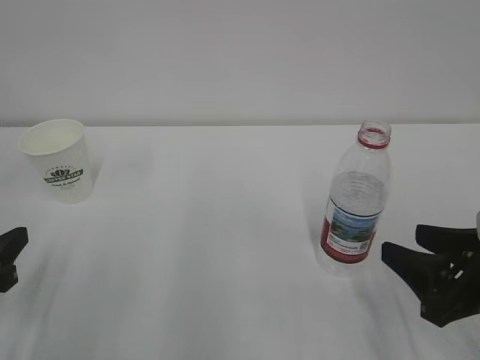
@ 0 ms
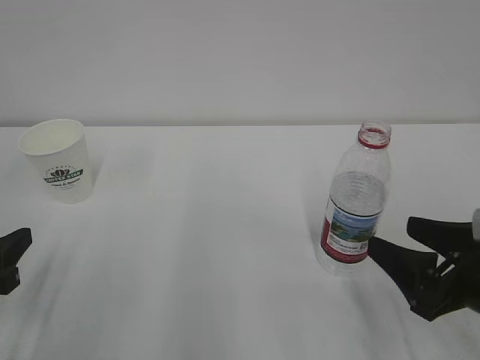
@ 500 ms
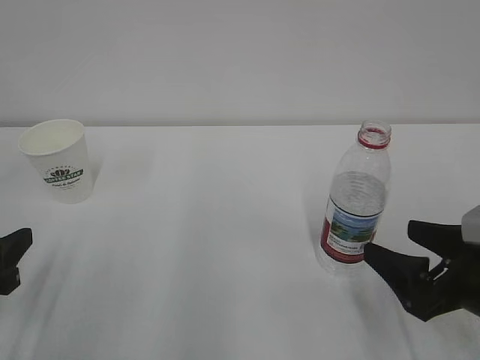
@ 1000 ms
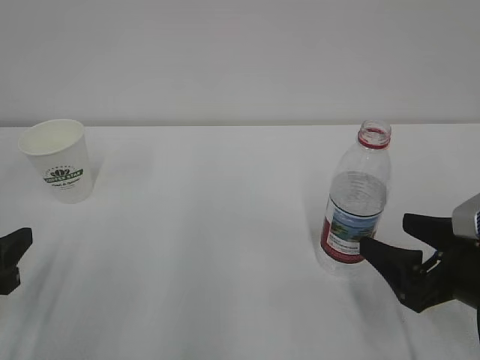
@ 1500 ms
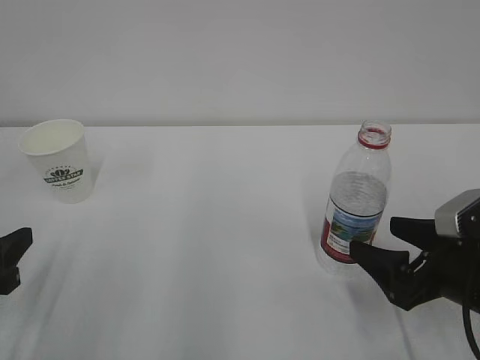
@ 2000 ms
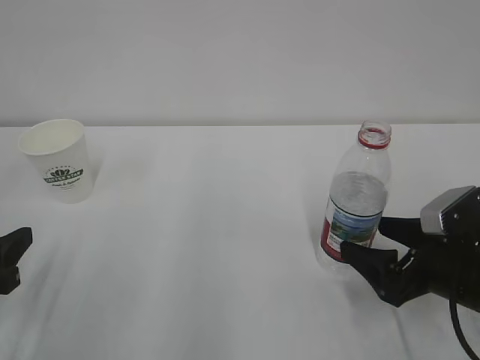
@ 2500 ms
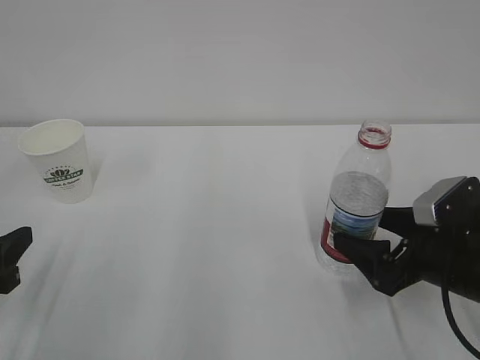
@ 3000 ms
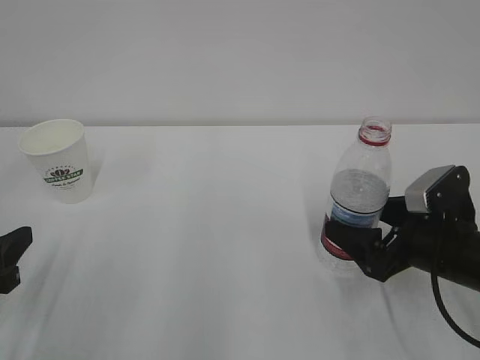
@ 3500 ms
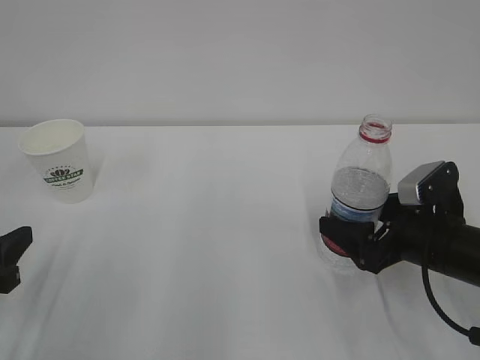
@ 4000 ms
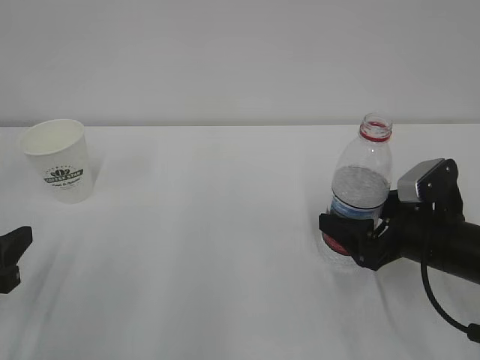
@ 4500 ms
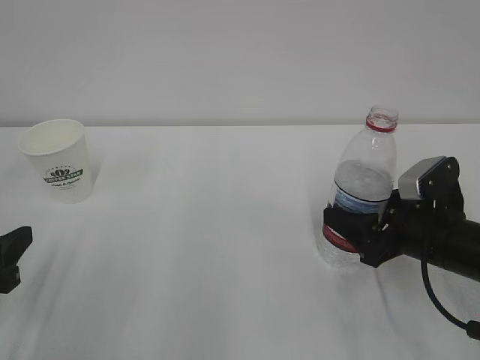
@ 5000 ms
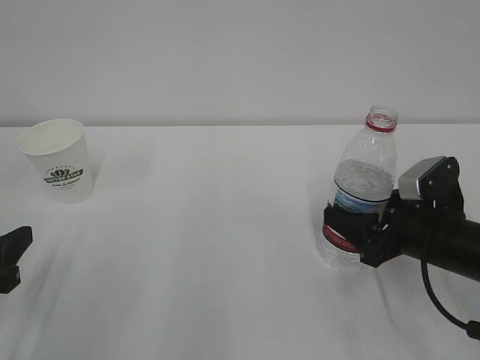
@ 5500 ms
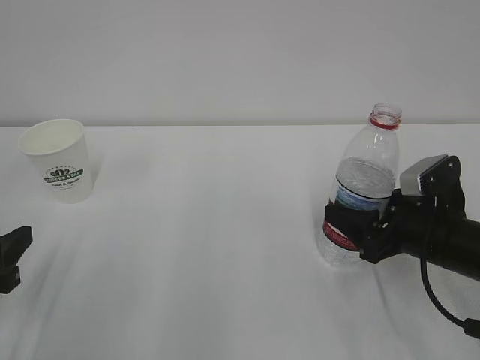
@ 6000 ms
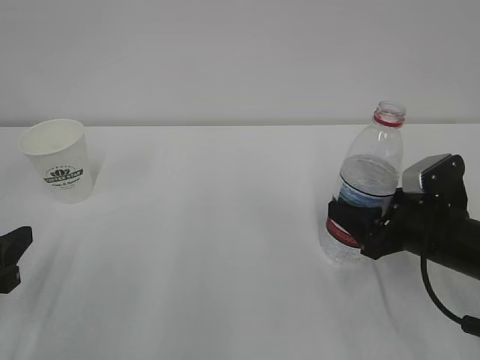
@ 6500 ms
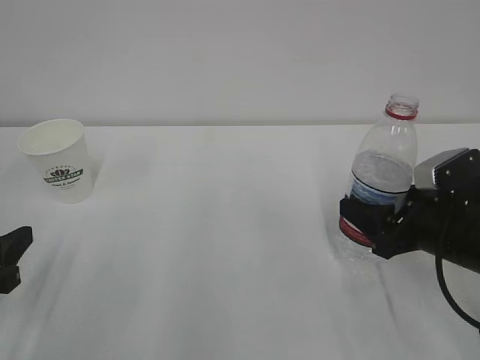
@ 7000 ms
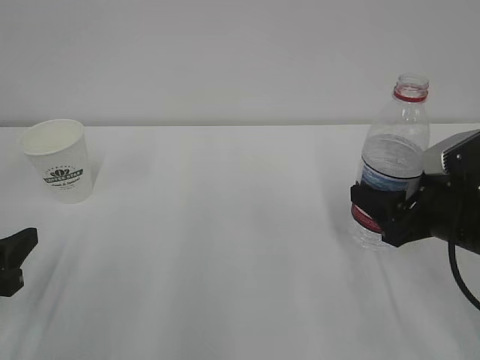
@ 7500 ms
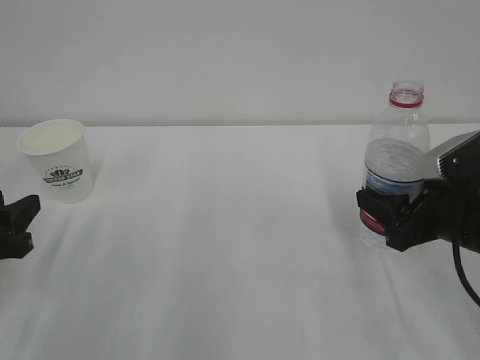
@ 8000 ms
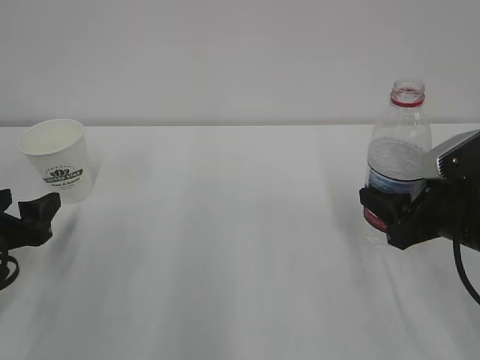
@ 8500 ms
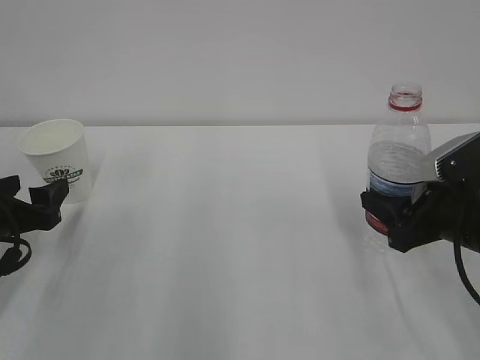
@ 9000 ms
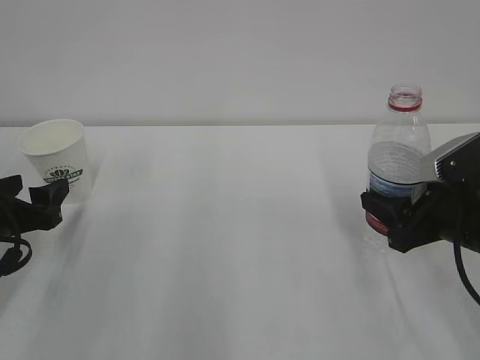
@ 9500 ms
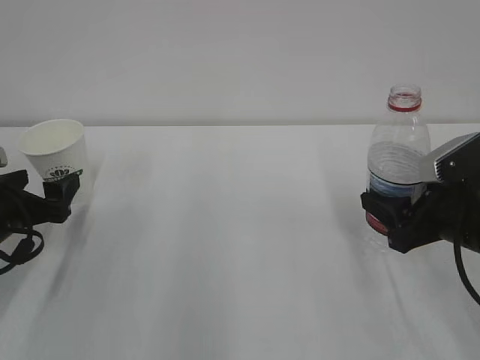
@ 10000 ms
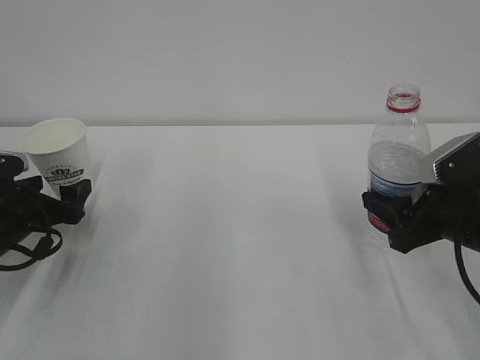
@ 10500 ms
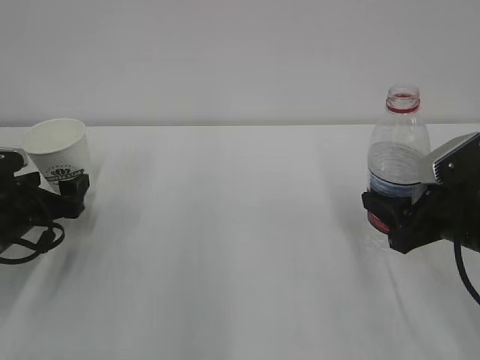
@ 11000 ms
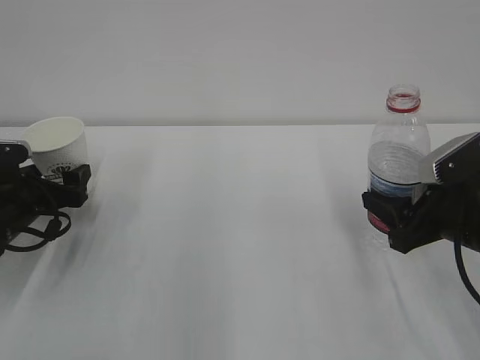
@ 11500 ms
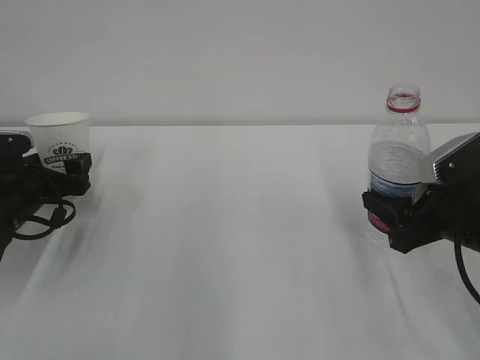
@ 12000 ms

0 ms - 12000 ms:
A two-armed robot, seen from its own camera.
0 ms - 2000 ms: The right gripper opens.
2000 ms - 4000 ms: The right gripper goes roughly 5 cm forward.
4000 ms - 6000 ms: The right gripper closes up.
6000 ms - 8000 ms: The right gripper moves roughly 5 cm.
8000 ms - 10000 ms: The left gripper heads forward, covering some 5 cm, and opens.
10000 ms - 12000 ms: The left gripper goes about 5 cm forward.

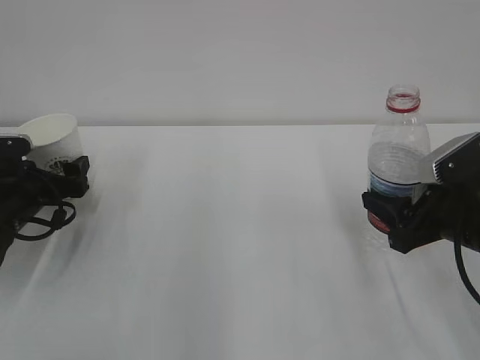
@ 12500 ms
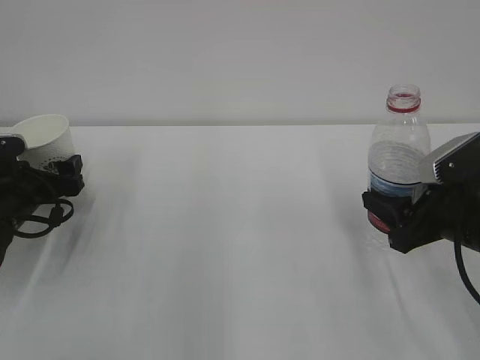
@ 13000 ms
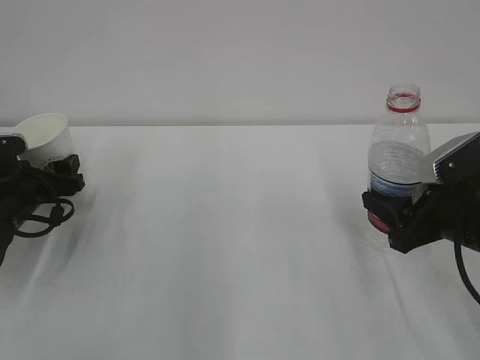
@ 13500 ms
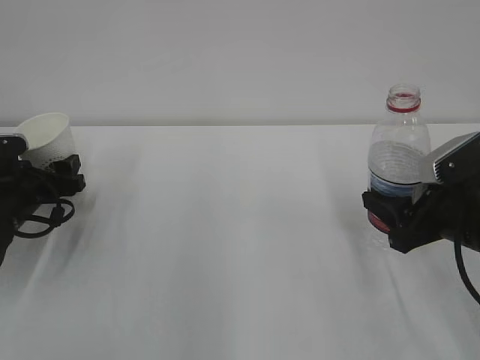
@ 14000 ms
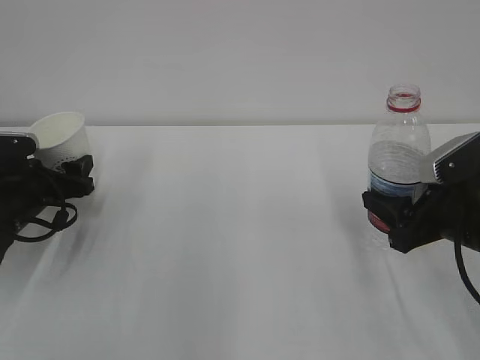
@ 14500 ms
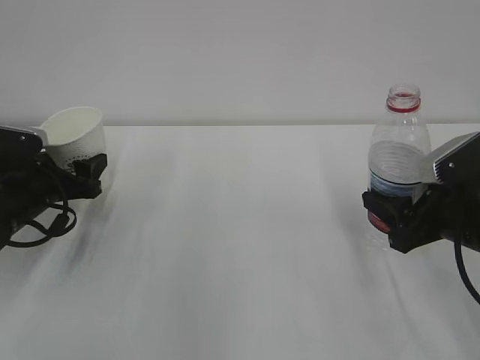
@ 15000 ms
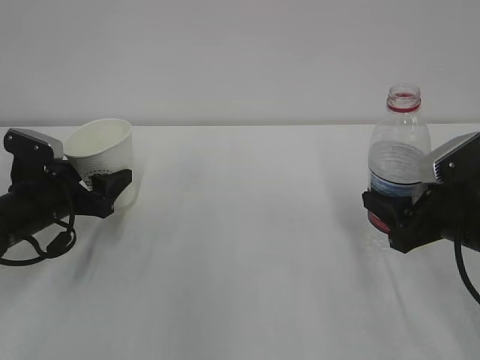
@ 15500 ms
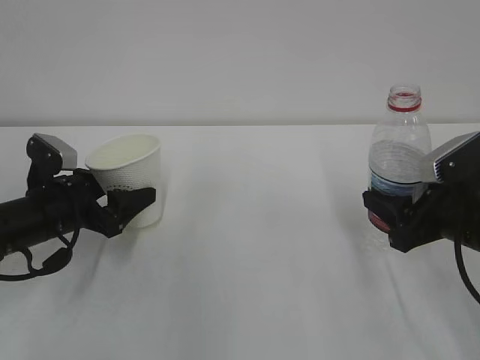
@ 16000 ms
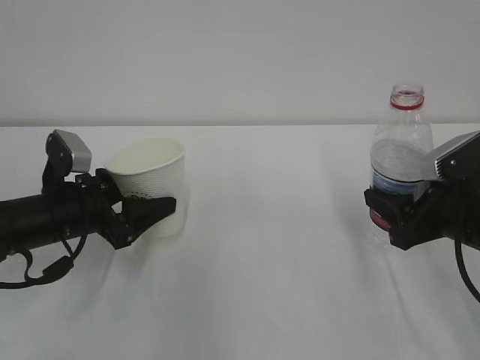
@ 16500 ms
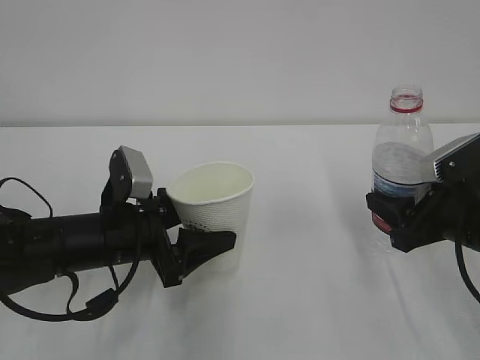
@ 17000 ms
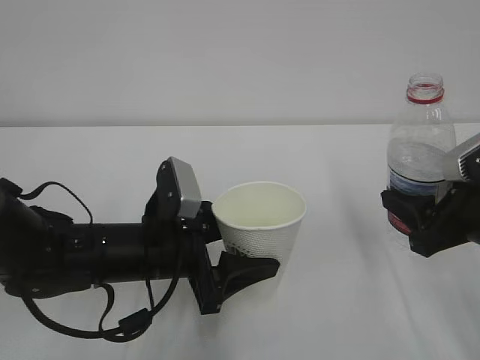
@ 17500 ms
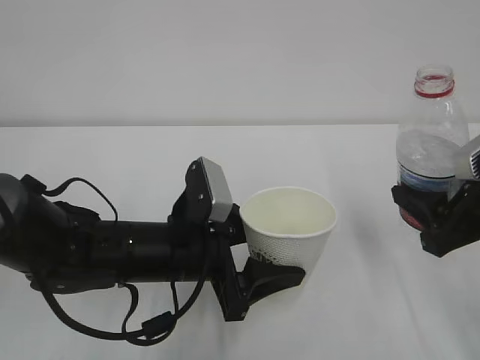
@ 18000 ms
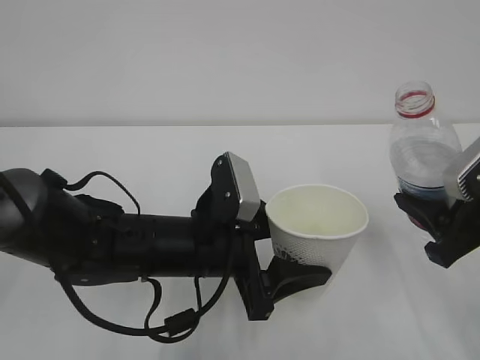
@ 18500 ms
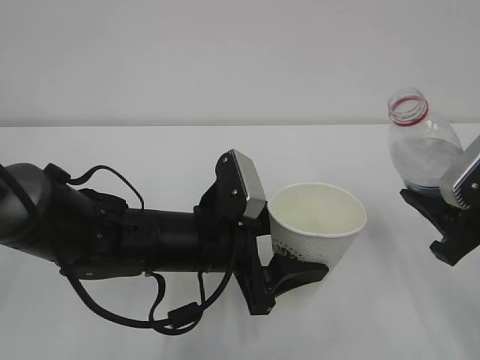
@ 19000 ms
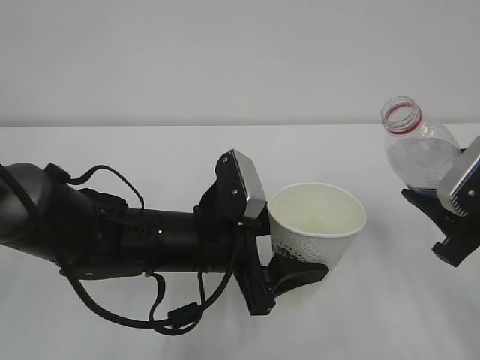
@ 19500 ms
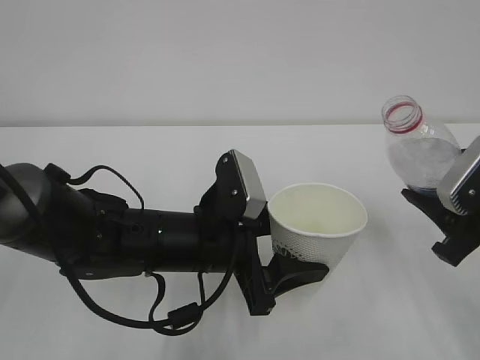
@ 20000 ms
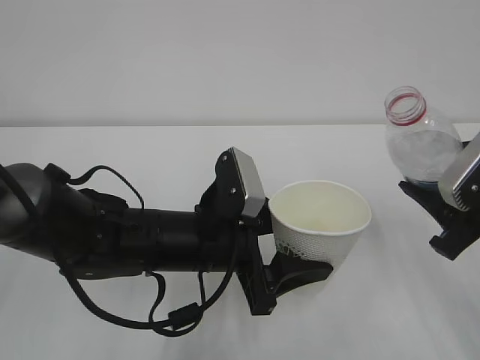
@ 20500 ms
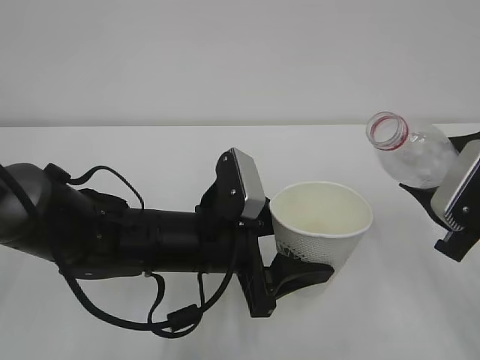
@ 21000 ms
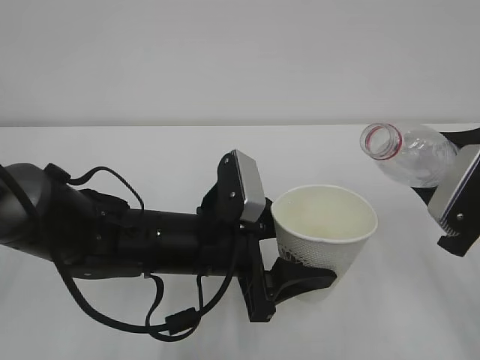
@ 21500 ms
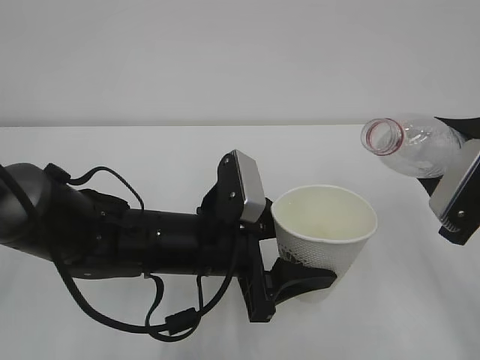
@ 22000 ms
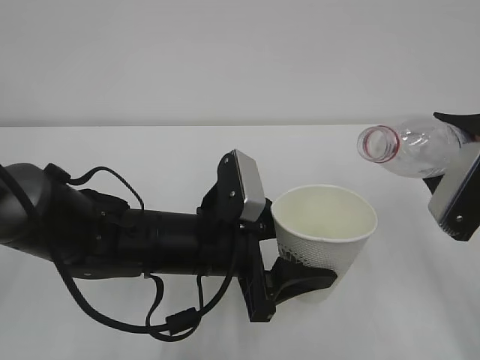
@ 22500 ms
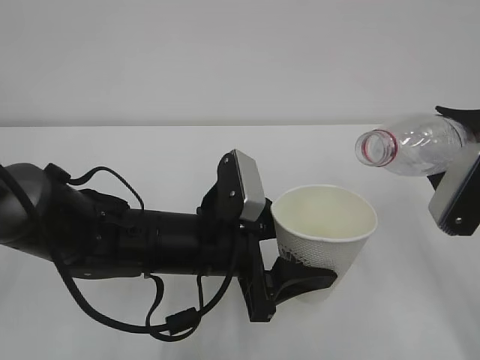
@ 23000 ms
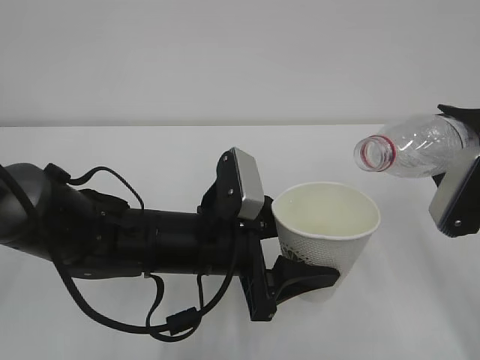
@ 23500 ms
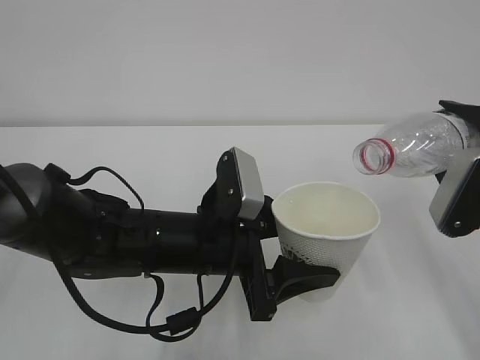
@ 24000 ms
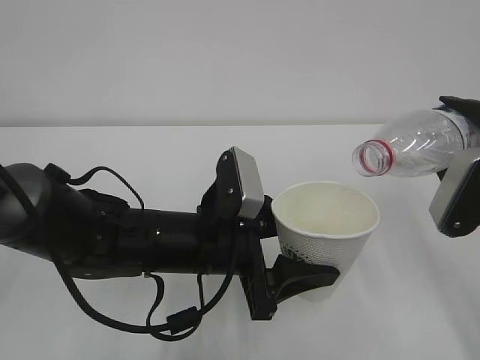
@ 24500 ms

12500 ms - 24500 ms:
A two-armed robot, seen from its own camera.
12500 ms - 14500 ms: The left gripper closes.
14500 ms - 16500 ms: The left gripper travels to the right and backward by some 10 cm.
16500 ms - 18500 ms: The right gripper moves about 5 cm. Meanwhile the left gripper moves to the right, about 15 cm.
18500 ms - 20500 ms: The grippers make only small movements.
22500 ms - 24500 ms: There are only small adjustments of the grippers.

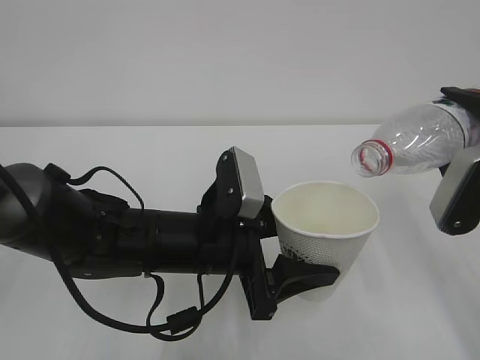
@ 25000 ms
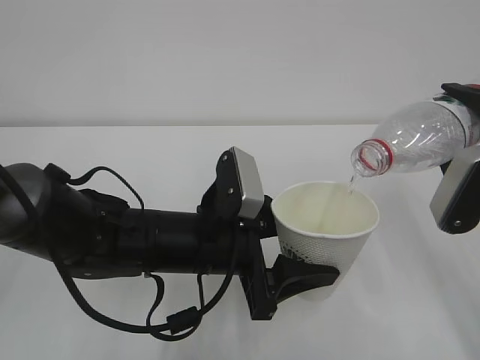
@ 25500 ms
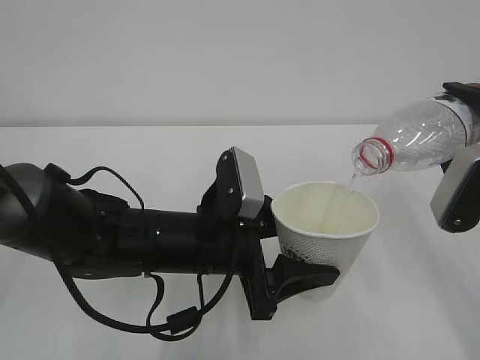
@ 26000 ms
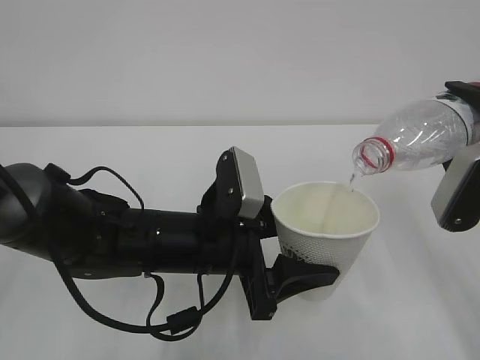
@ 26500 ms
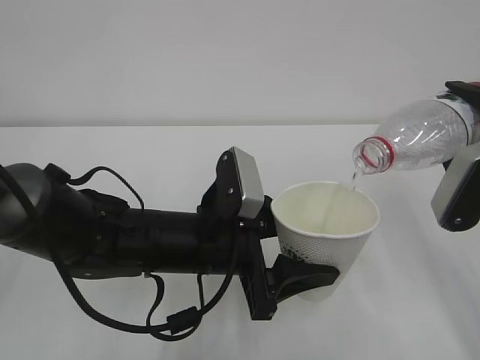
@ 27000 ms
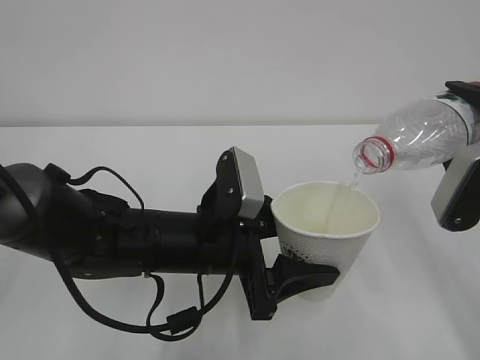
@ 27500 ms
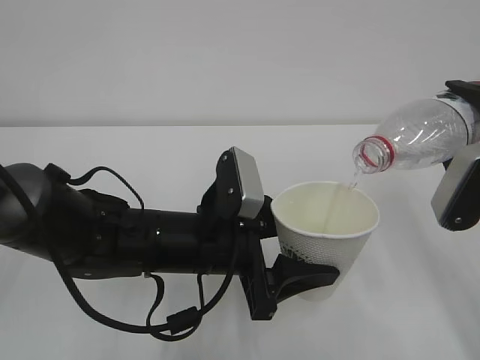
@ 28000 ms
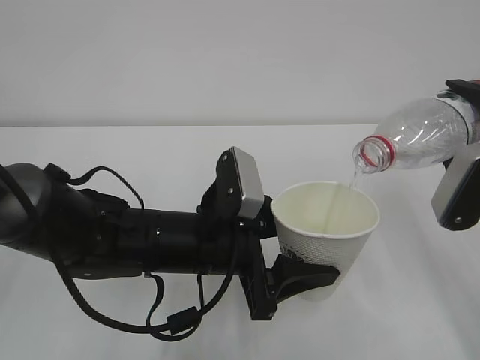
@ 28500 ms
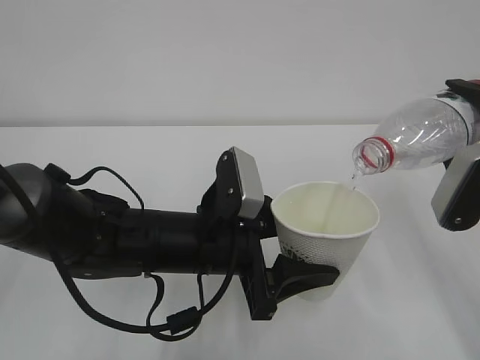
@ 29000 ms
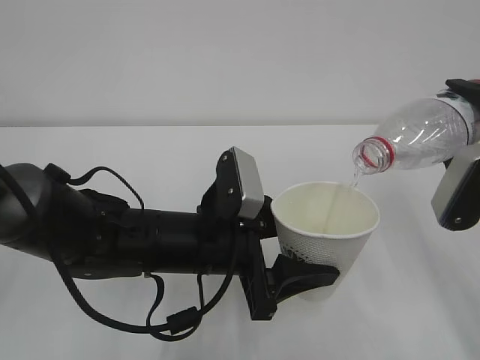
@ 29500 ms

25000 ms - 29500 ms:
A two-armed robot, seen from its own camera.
25000 ms - 29500 ms: Both grippers stay about where they are.
